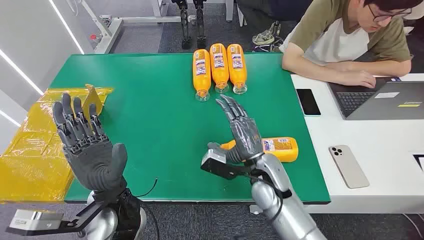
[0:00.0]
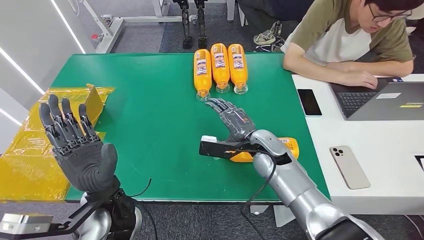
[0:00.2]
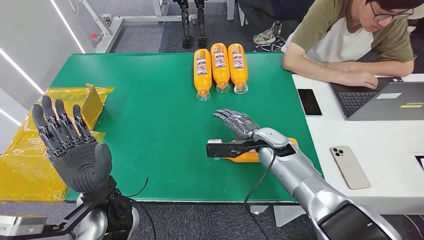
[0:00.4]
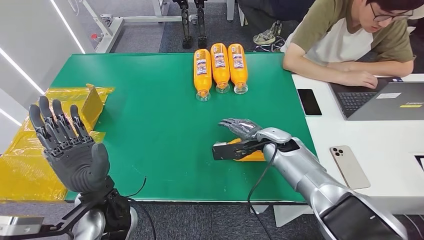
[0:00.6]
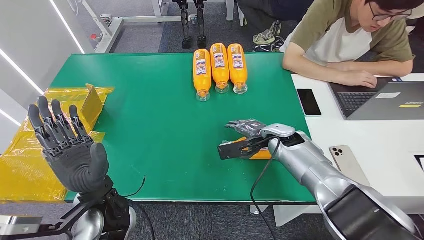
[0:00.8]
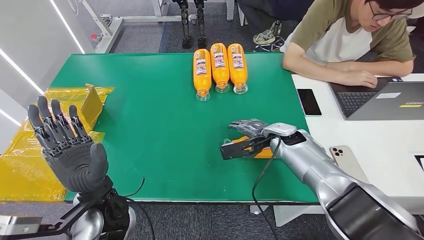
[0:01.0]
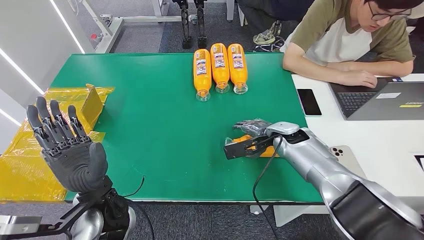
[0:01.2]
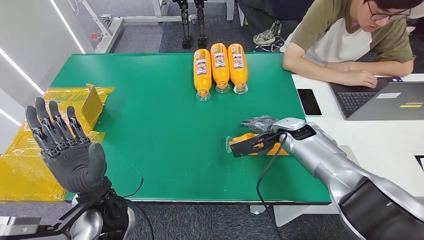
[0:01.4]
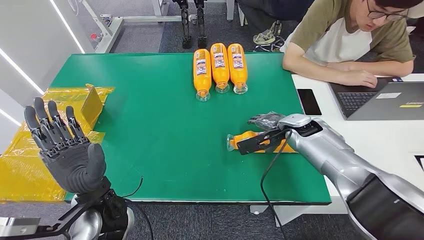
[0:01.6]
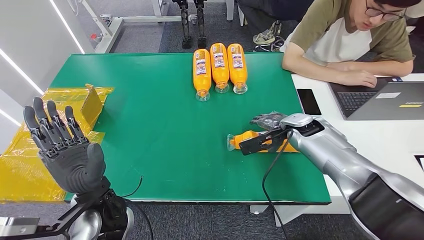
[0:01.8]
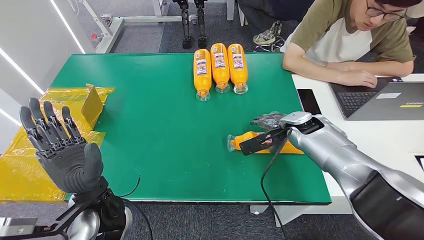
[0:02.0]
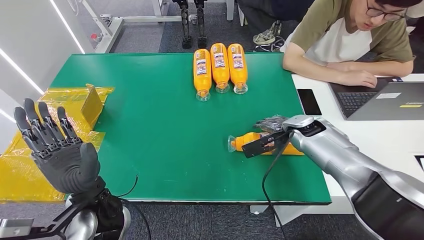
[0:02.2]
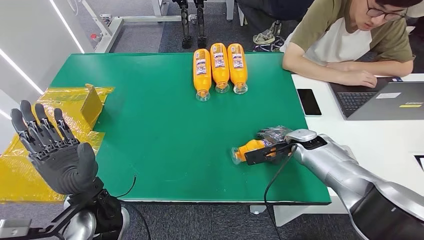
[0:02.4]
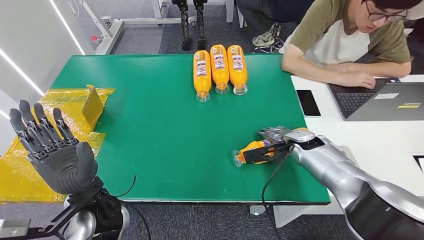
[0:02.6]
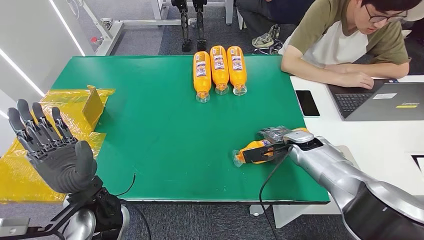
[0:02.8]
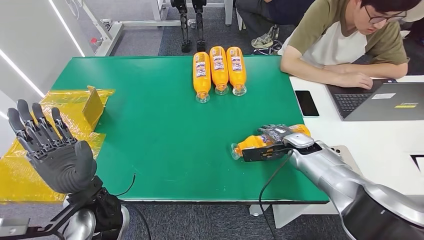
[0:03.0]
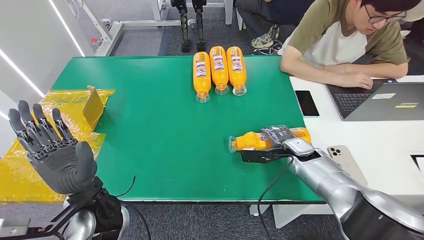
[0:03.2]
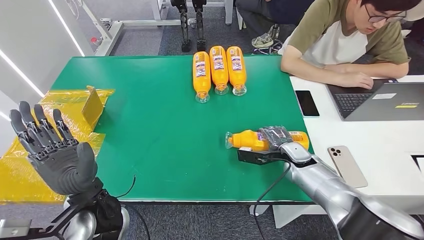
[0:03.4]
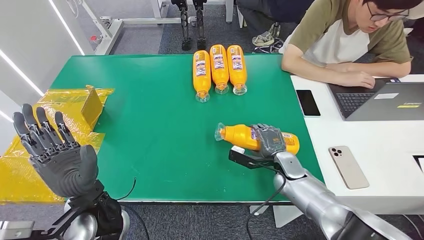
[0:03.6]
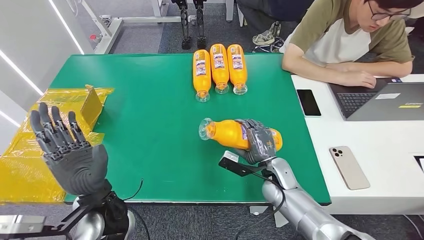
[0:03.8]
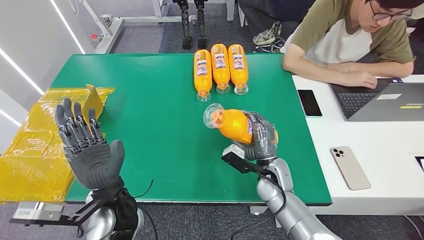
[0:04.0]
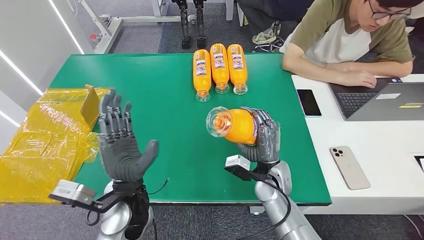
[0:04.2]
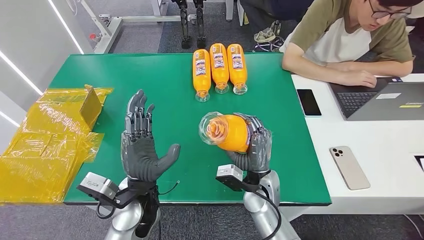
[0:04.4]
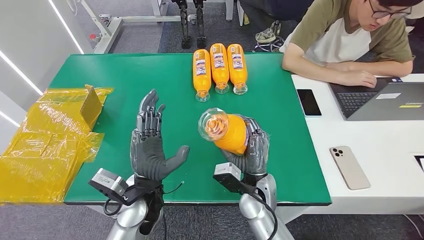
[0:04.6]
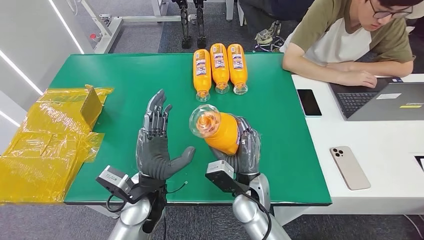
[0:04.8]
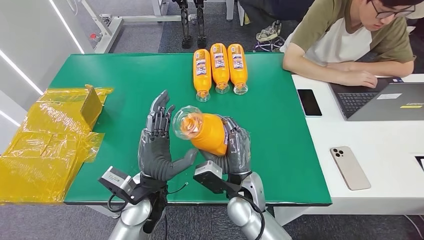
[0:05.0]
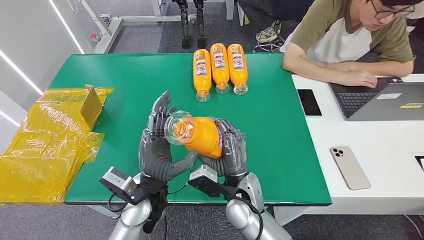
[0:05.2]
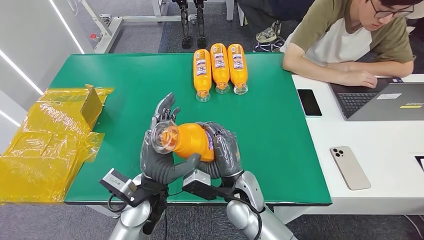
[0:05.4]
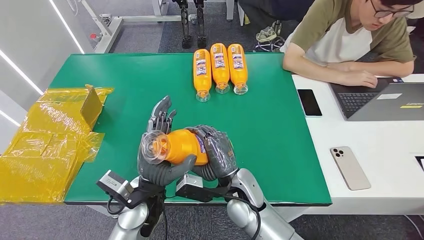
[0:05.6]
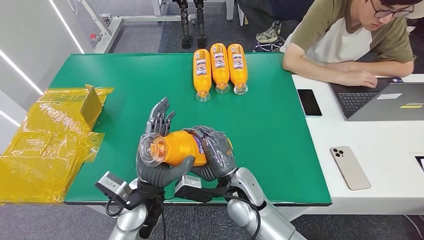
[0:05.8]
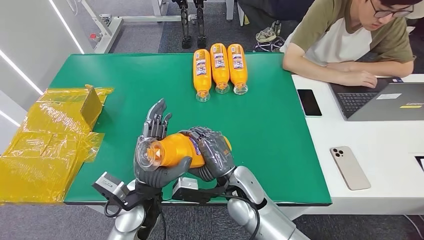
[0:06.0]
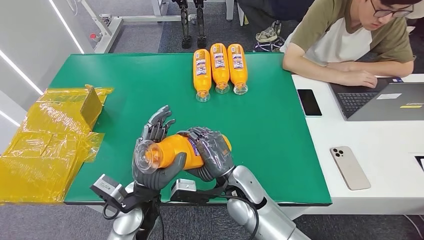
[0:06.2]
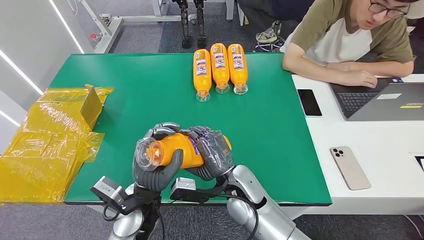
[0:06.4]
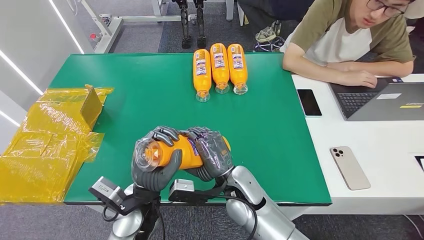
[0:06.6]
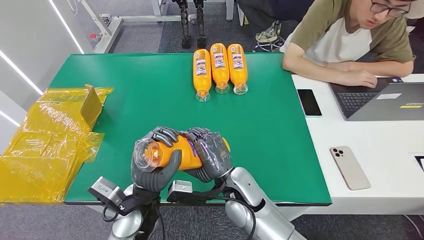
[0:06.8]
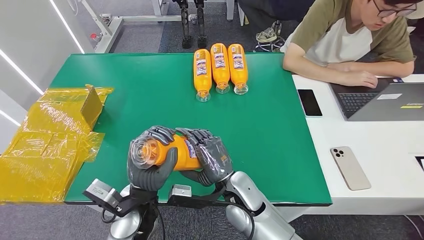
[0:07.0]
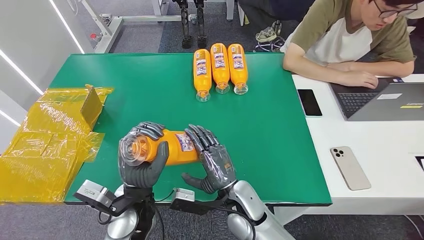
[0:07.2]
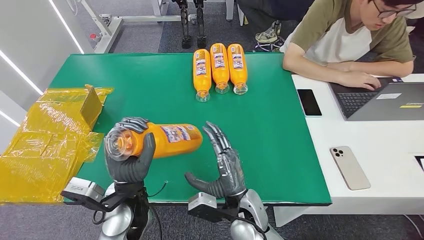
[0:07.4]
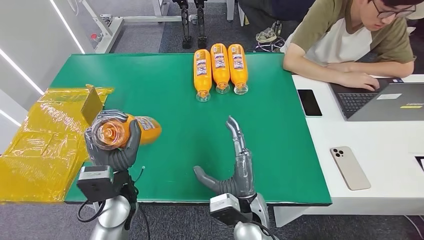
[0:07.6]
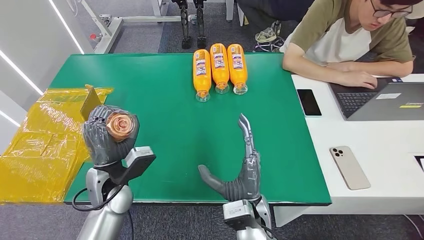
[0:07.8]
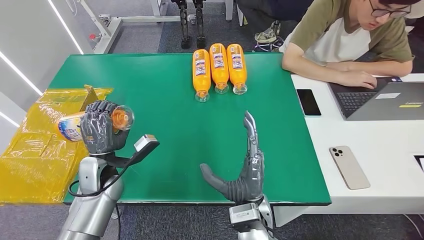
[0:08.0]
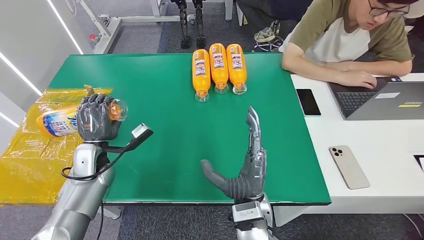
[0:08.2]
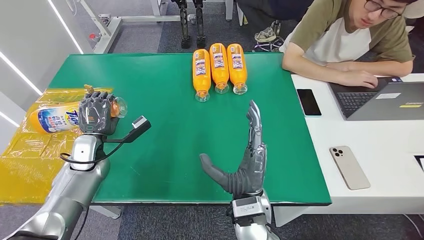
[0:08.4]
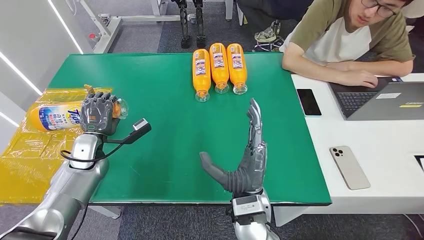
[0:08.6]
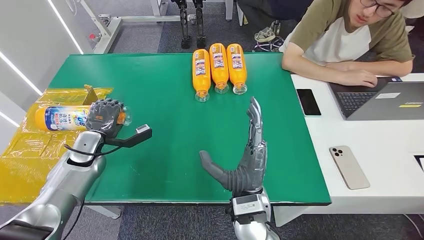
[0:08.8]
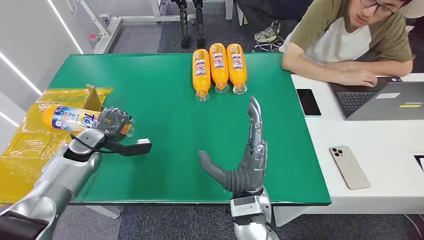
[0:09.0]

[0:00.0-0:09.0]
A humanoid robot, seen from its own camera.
Step, 0:00.0 to 0:03.8: Pick up the bottle from the table.
Step, 0:04.0 to 0:08.8: Turn the bottle to the front side.
0:04.4 to 0:06.0: The right hand moves to the left, about 5 cm.
0:06.0 to 0:07.6: The right hand is displaced backward by roughly 5 cm; the left hand moves to the left, approximately 5 cm.
